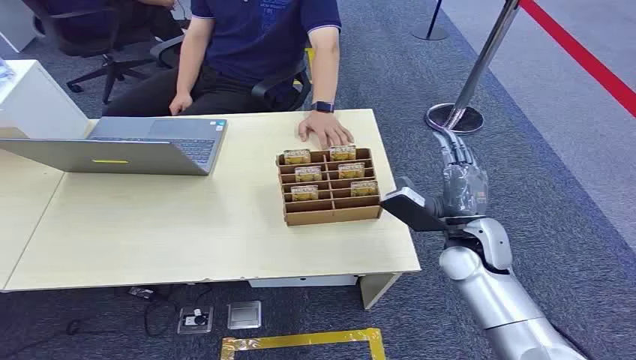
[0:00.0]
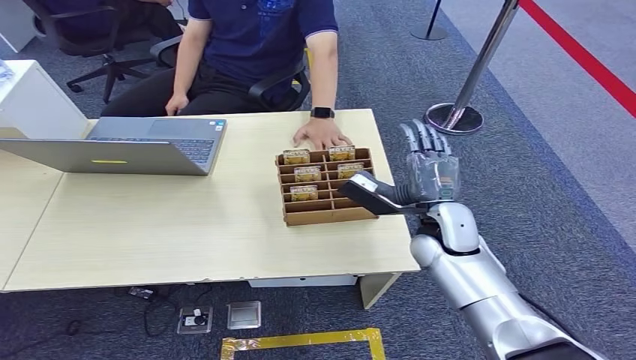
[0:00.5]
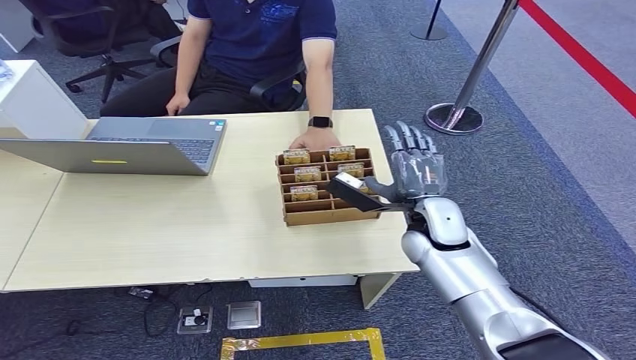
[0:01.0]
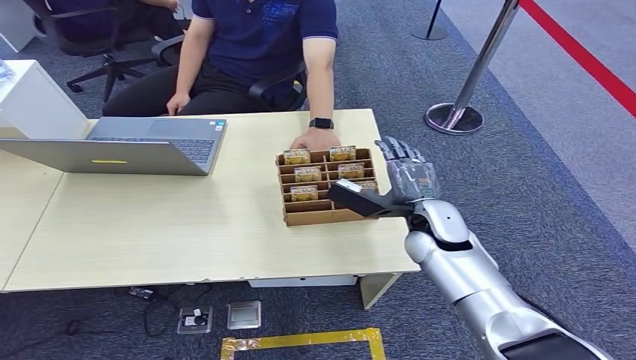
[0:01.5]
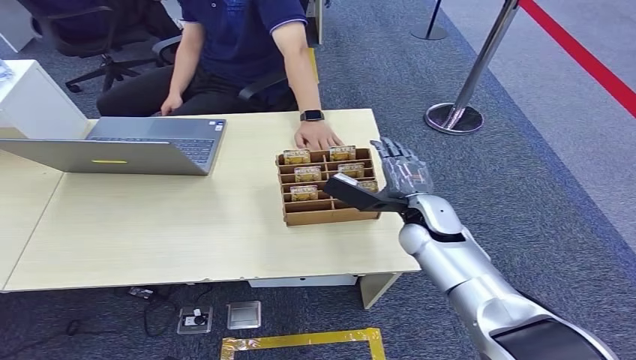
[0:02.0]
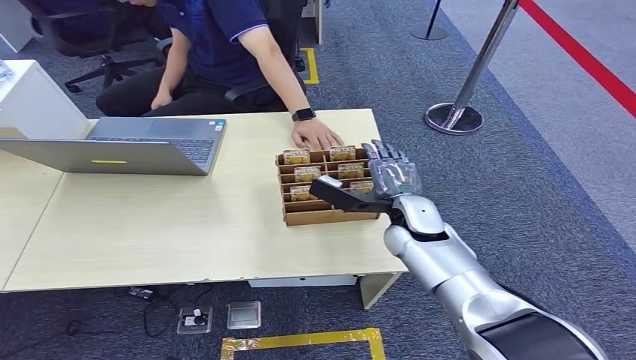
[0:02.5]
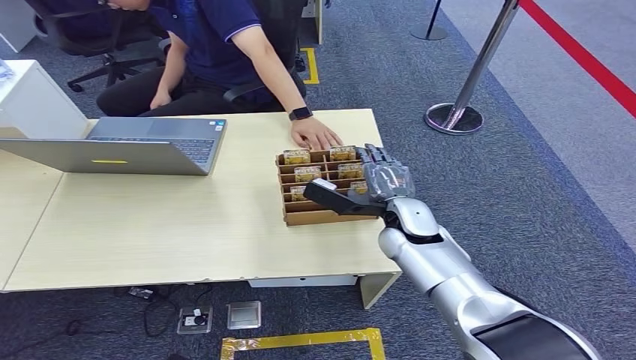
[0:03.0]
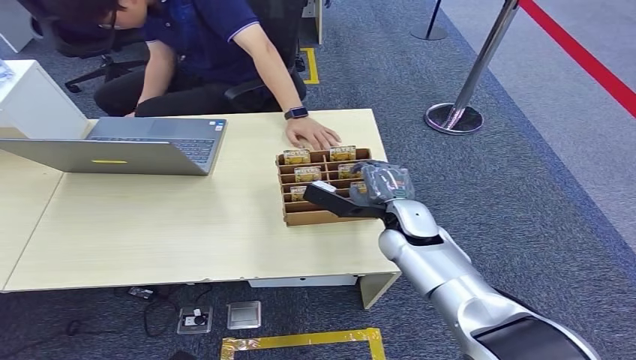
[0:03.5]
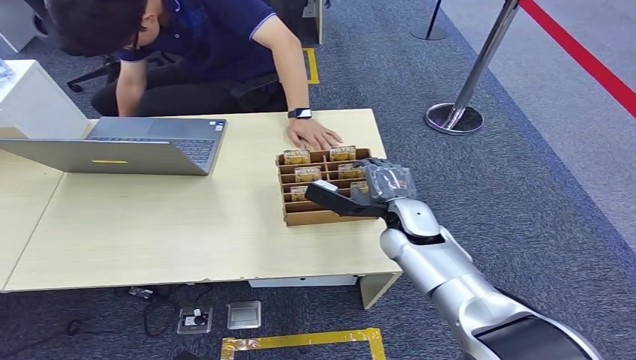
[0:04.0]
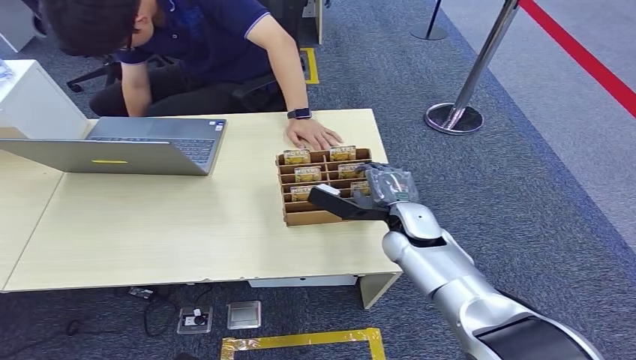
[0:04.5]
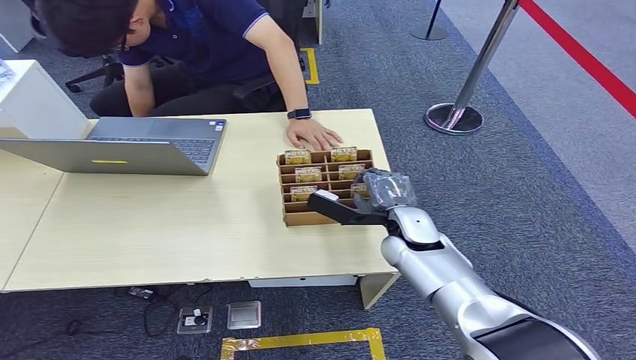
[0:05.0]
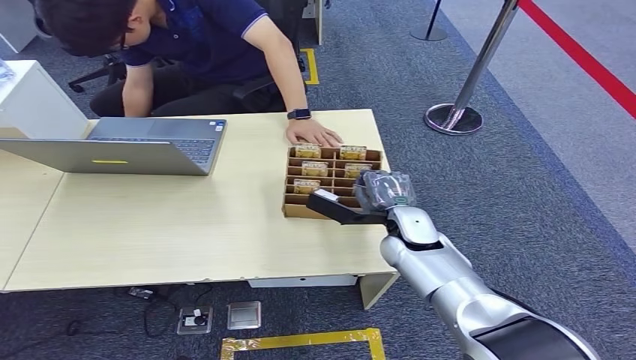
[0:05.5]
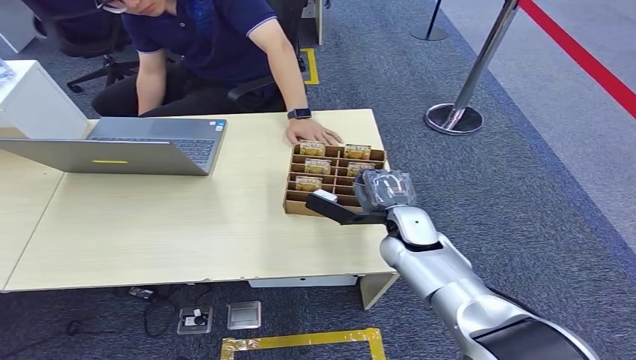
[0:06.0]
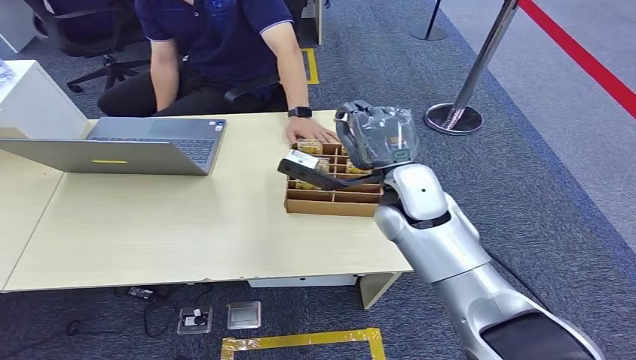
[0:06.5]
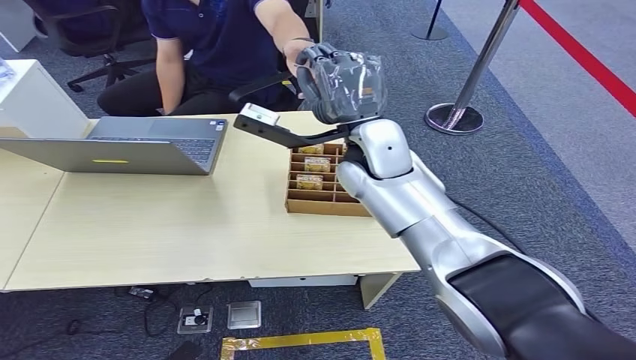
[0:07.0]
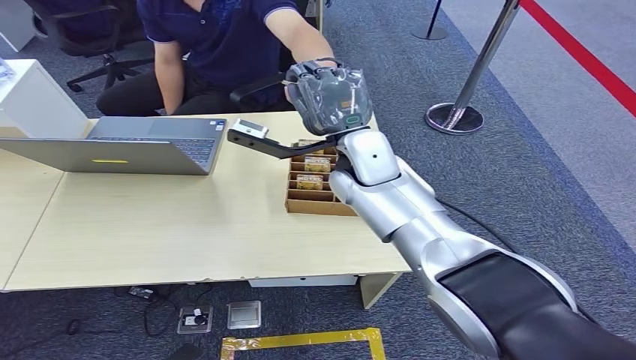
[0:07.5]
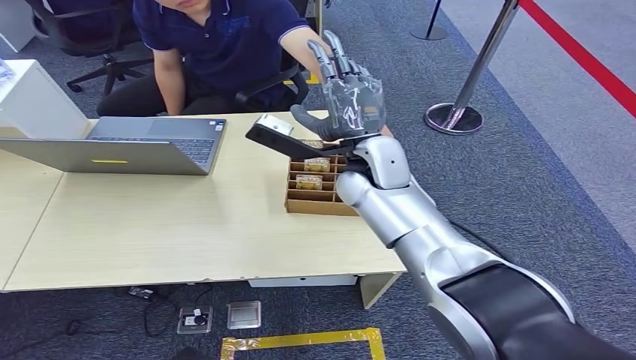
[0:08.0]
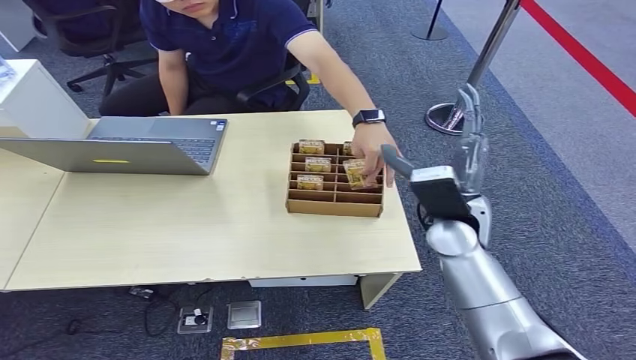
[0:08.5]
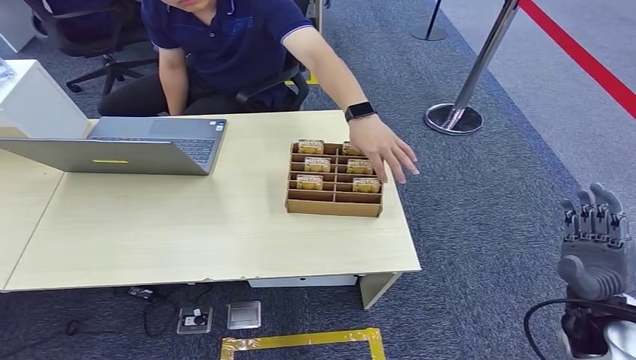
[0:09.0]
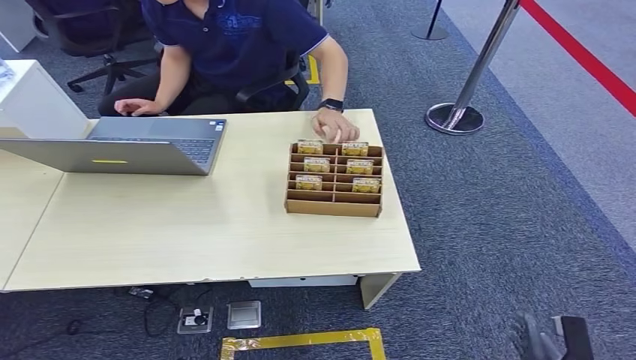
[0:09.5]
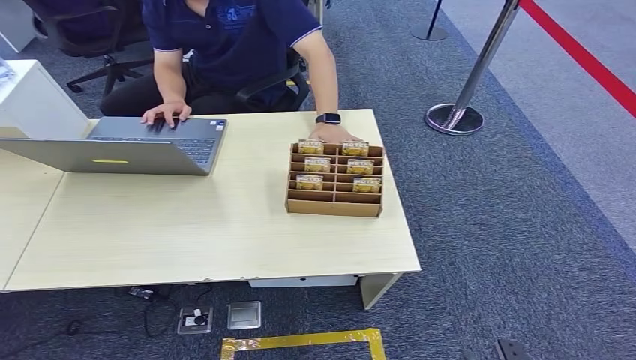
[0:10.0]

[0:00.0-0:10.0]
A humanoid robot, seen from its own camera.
Task of the whole recording: Pick up the card and hand it to the target person.
Step, 0:00.0 to 0:06.0: Pick up the key card from the card box.
Step, 0:06.5 to 0:10.0: Hand the key card to the target.
0:02.0 to 0:06.0: The hands move only a little.
0:06.0 to 0:08.0: The right hand is displaced upward and to the left by approximately 15 cm.
0:08.0 to 0:10.0: The right hand heads backward, downward and to the right, covering roughly 60 cm.
